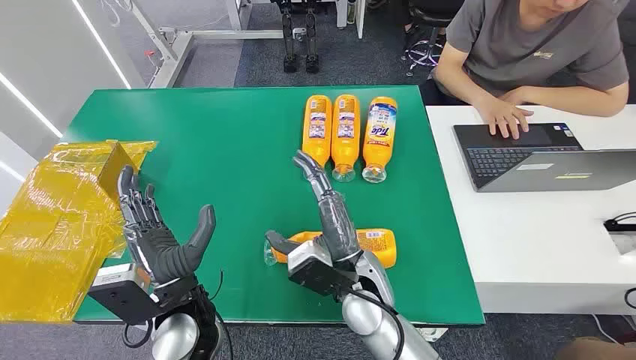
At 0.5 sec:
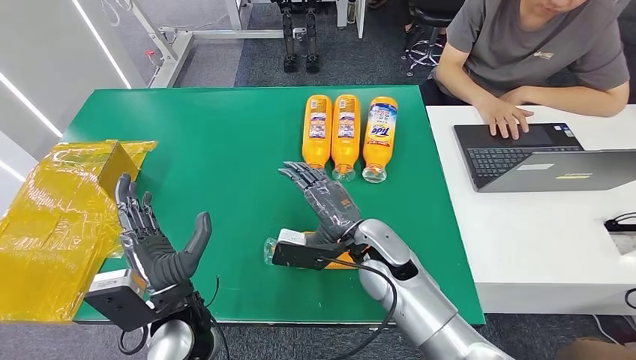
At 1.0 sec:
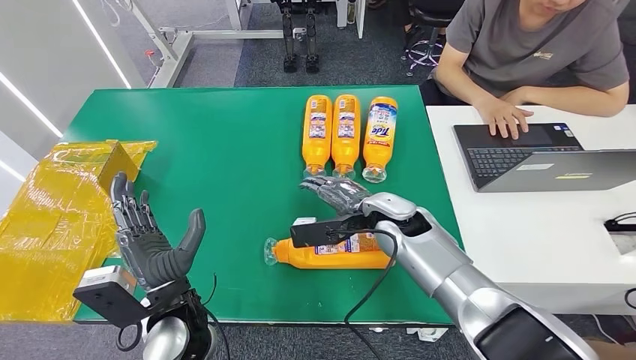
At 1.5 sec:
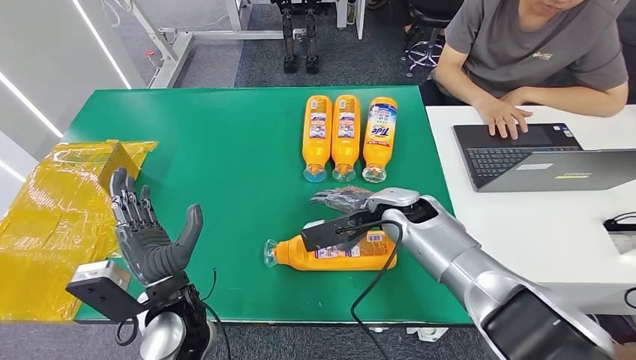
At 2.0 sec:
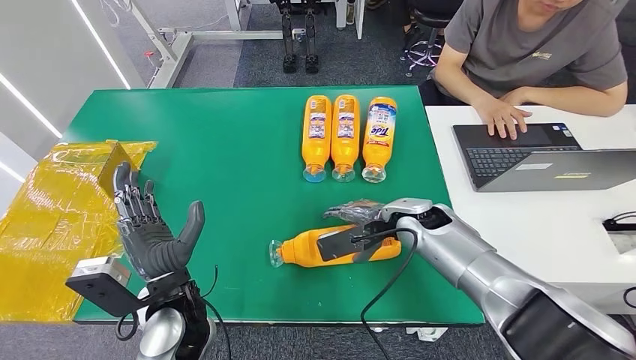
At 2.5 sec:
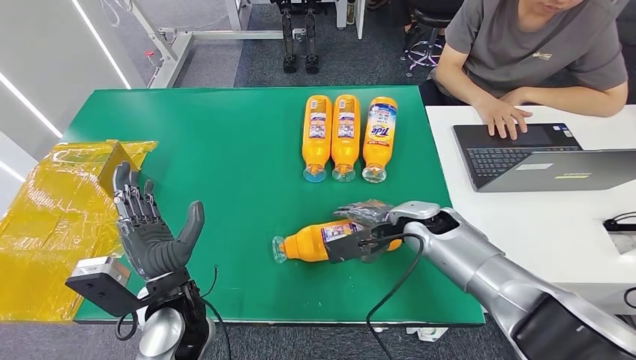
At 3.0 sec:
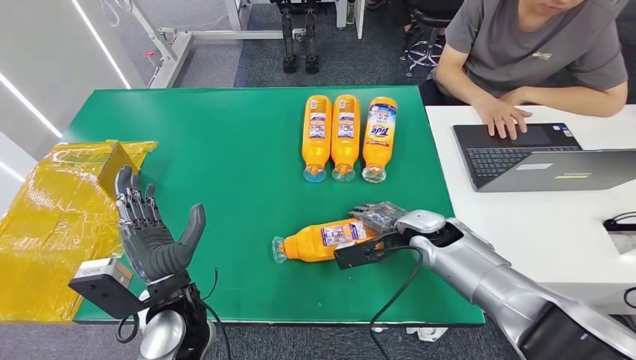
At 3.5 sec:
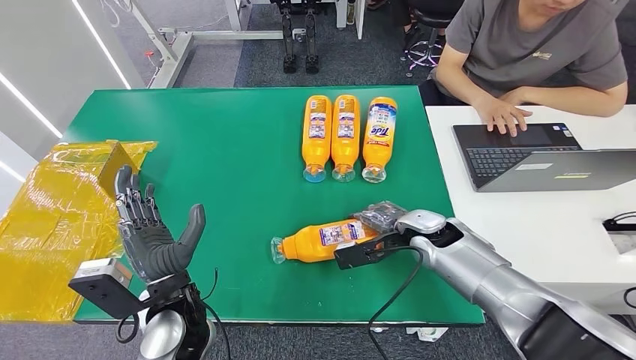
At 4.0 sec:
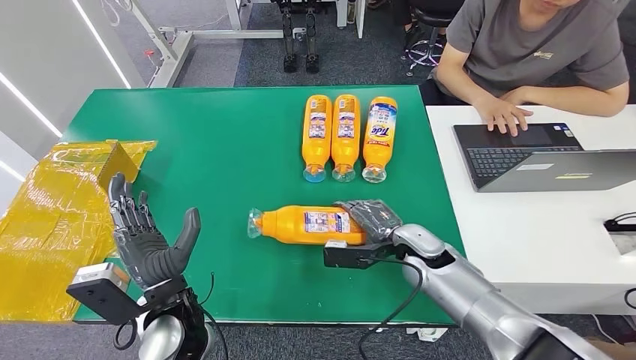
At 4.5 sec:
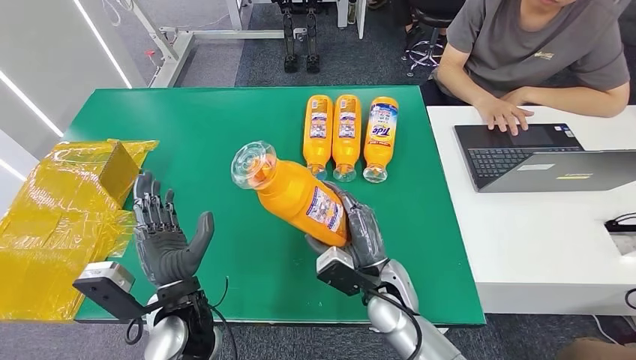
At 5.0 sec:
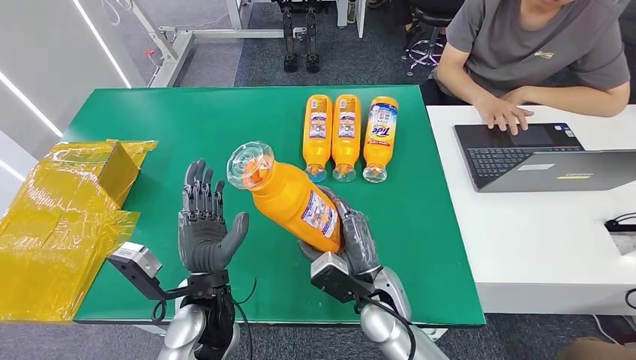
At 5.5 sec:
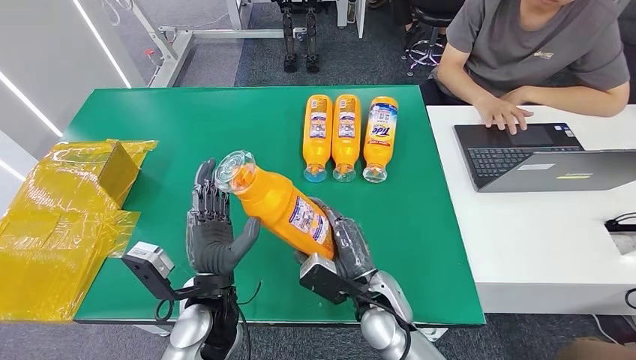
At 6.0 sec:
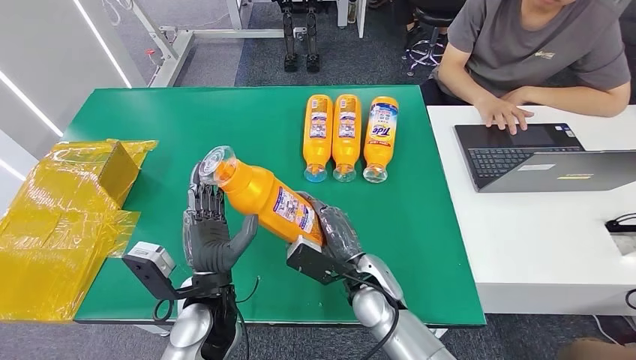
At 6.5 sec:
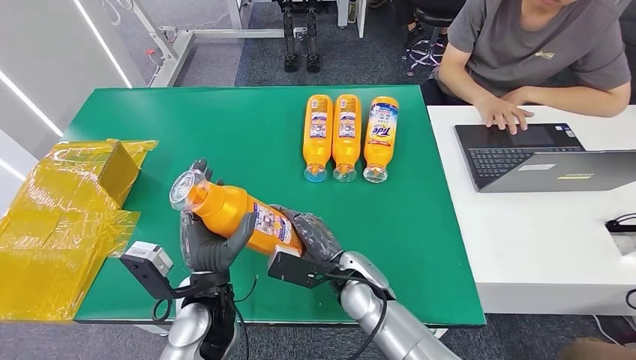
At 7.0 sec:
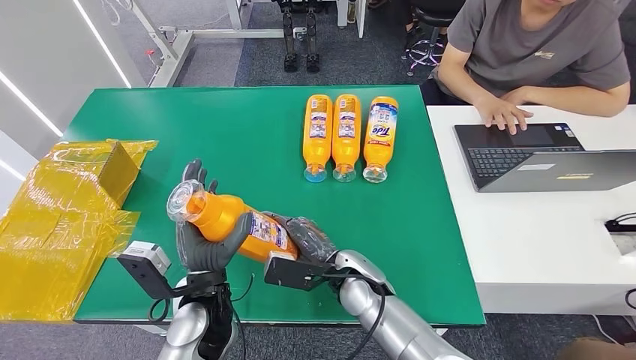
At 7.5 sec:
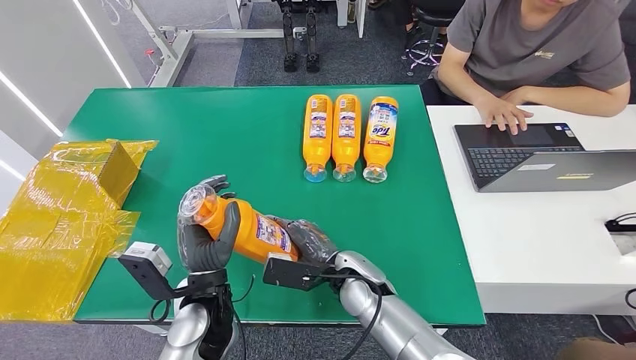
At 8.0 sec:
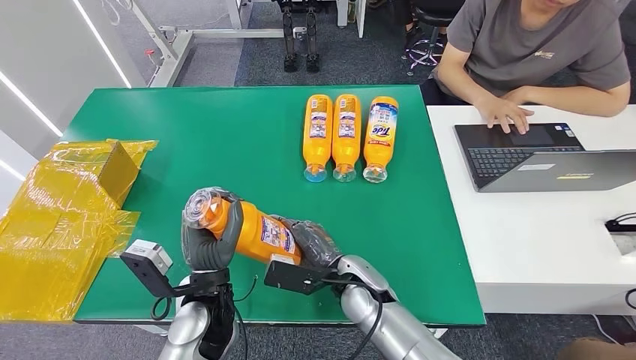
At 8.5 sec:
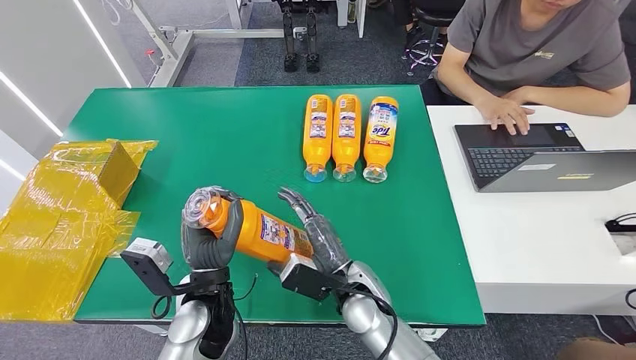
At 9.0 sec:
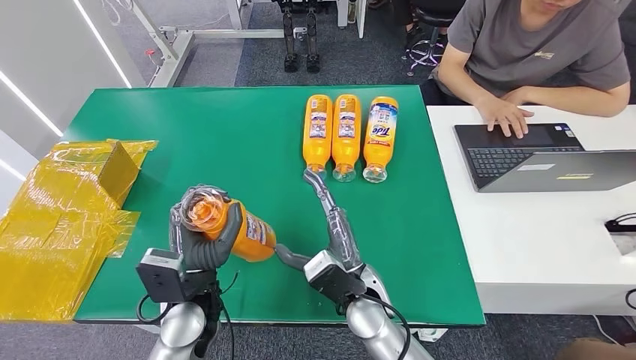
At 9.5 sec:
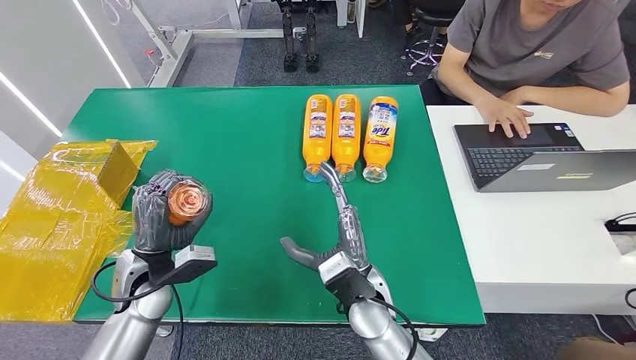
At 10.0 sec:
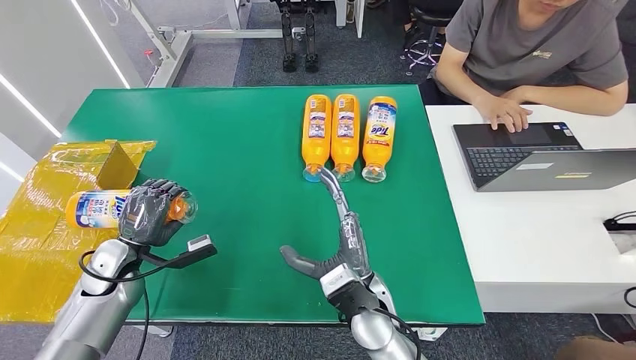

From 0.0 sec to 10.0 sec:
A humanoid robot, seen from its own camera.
Step, from 0.0 sec to 4.5 sec: Pick up the bottle from the table.
From 2.0 sec to 4.0 sec: The right hand travels downward by approximately 5 cm.
From 8.0 sec to 10.0 sec: The right hand ends up some 5 cm from where it was, while the left hand heads to the left, covering approximately 20 cm.

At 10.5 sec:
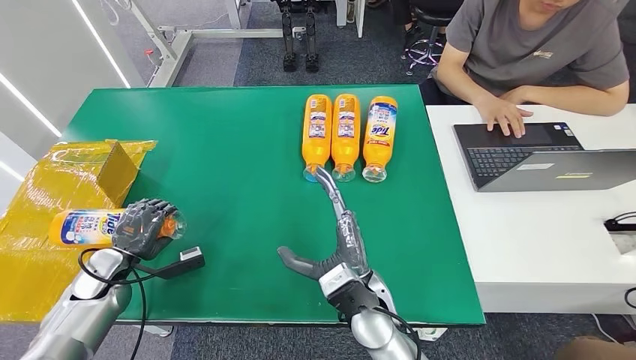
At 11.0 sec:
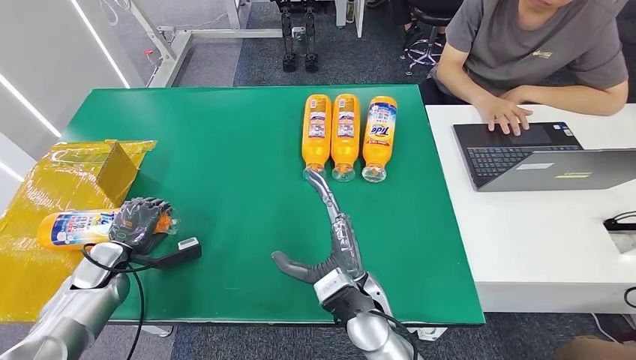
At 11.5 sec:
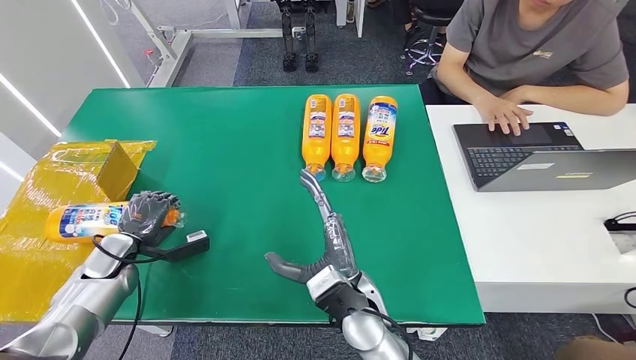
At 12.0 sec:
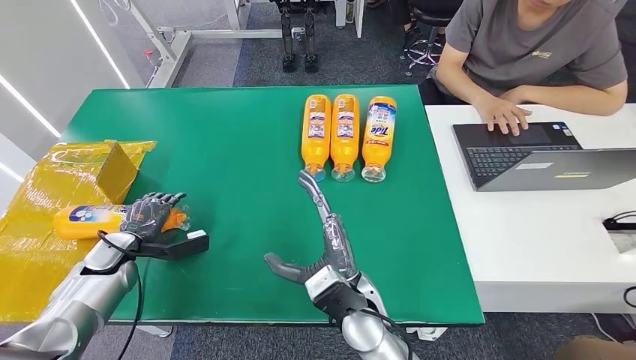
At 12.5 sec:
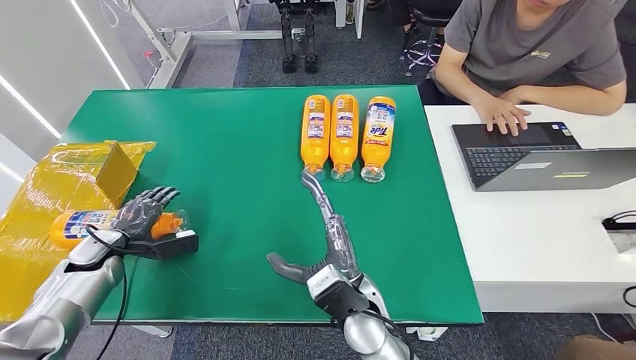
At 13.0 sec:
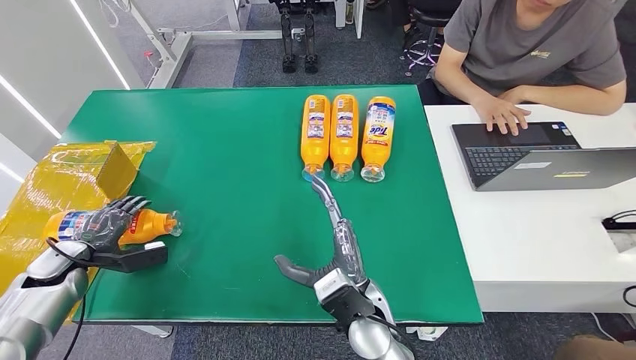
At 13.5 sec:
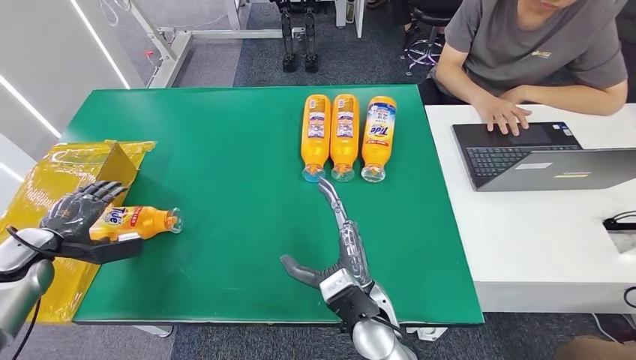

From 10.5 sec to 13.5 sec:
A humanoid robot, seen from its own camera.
Step, from 10.5 sec to 13.5 sec: Turn the bottle to the front side.
From 12.0 sec to 13.5 sec: The left hand travels to the left and upward by approximately 15 cm.
